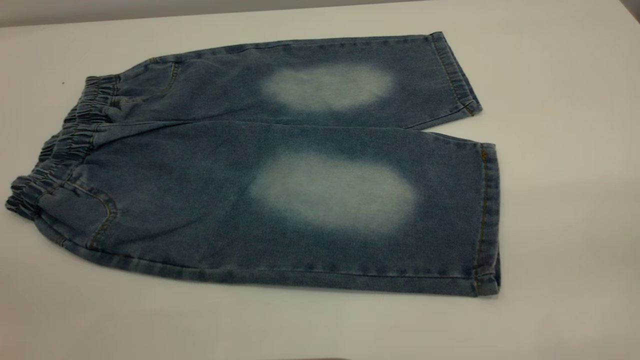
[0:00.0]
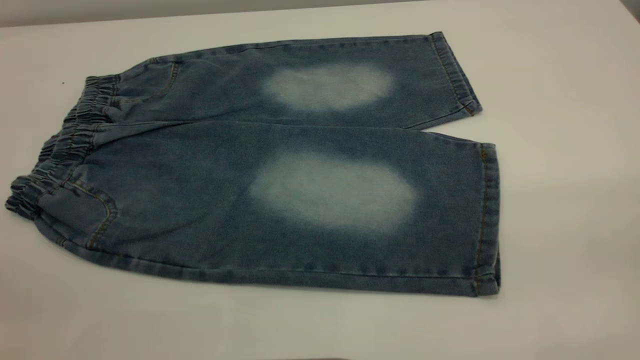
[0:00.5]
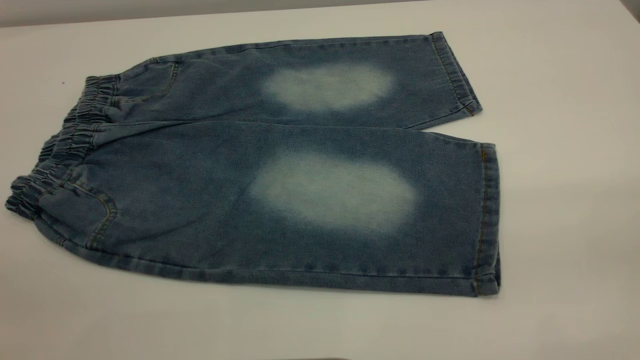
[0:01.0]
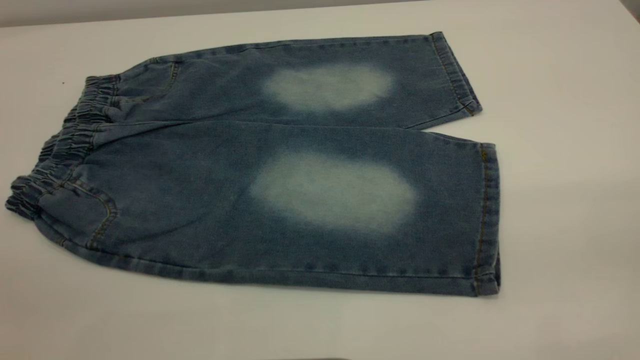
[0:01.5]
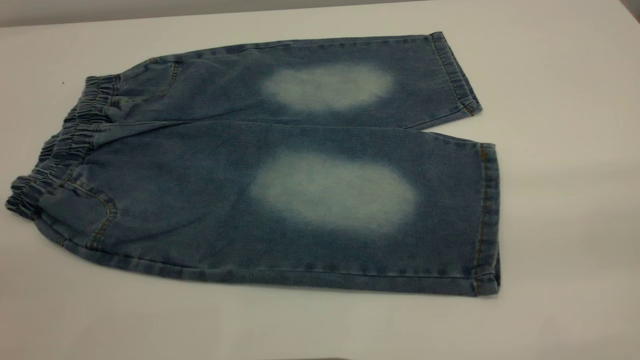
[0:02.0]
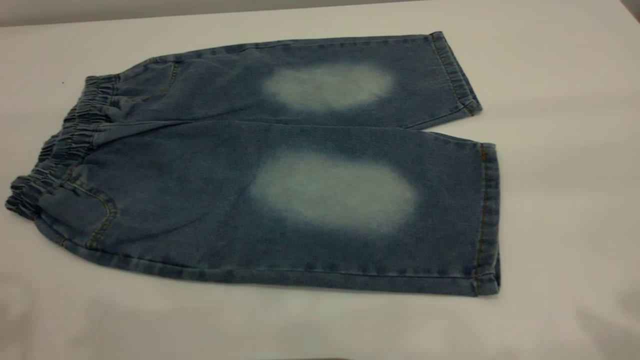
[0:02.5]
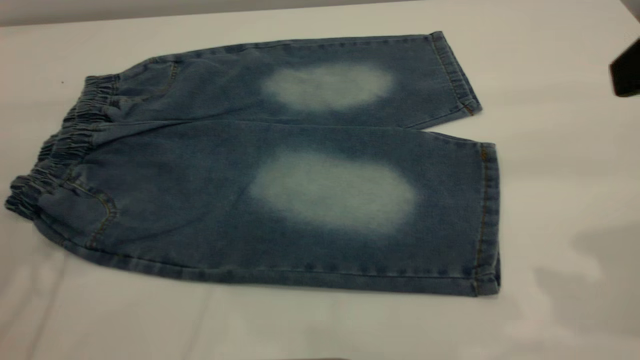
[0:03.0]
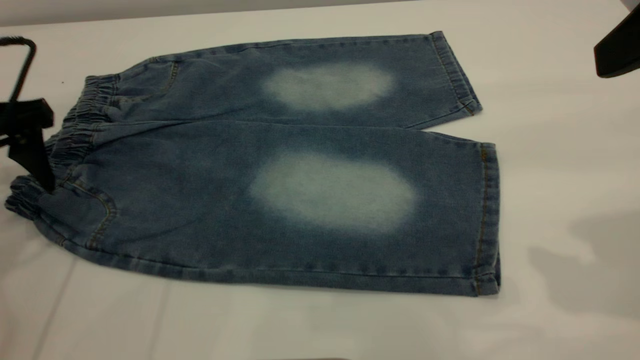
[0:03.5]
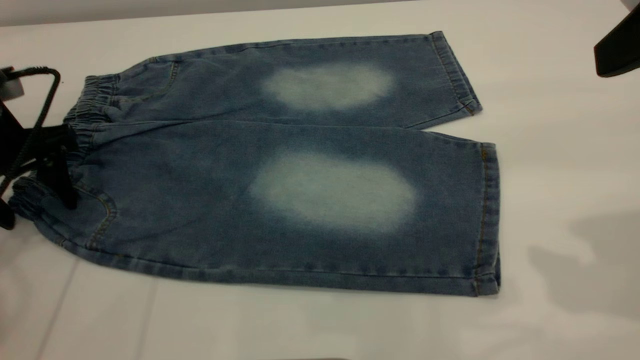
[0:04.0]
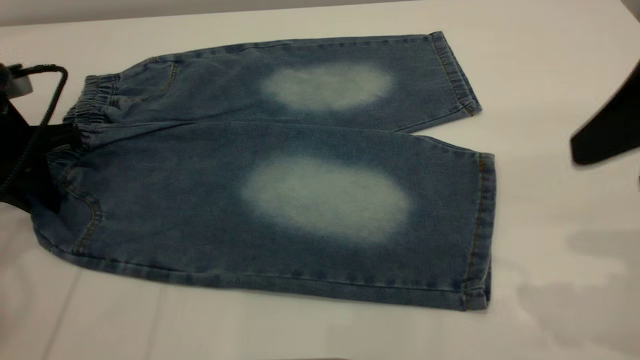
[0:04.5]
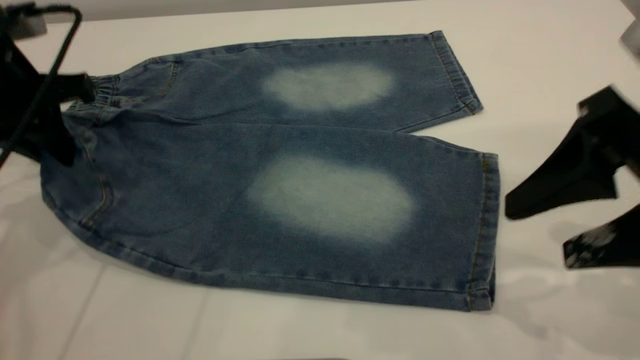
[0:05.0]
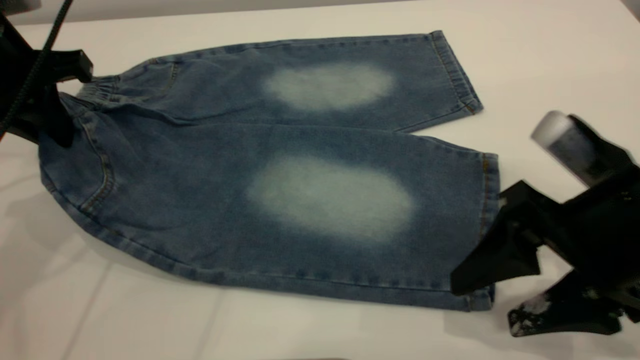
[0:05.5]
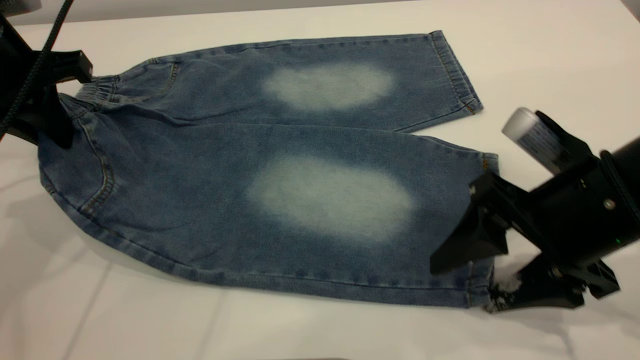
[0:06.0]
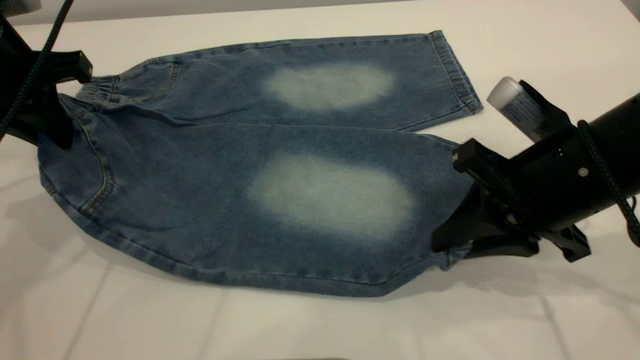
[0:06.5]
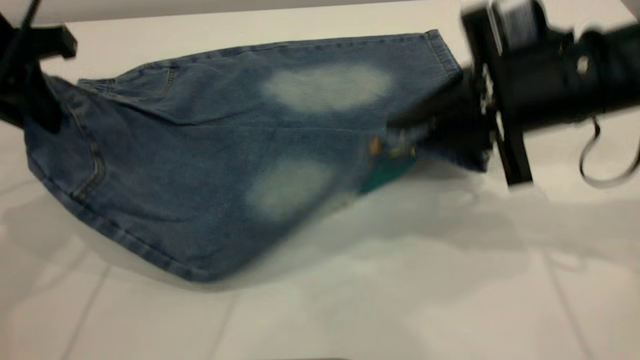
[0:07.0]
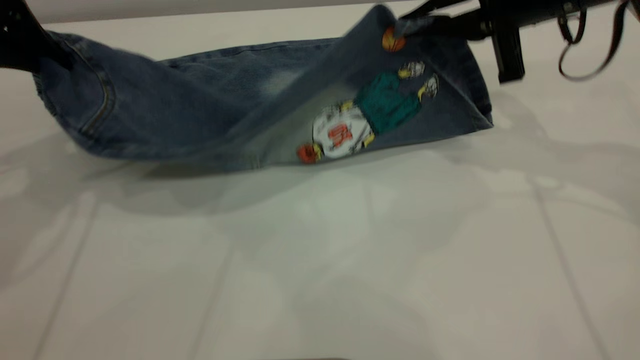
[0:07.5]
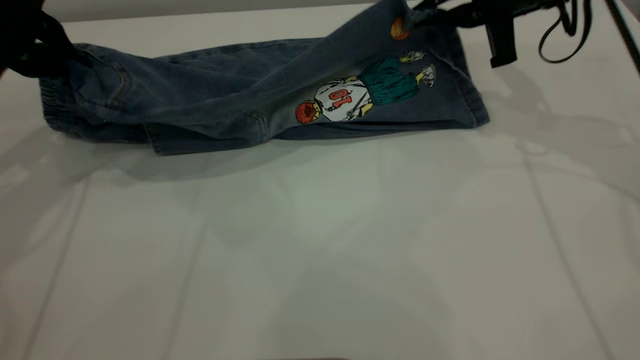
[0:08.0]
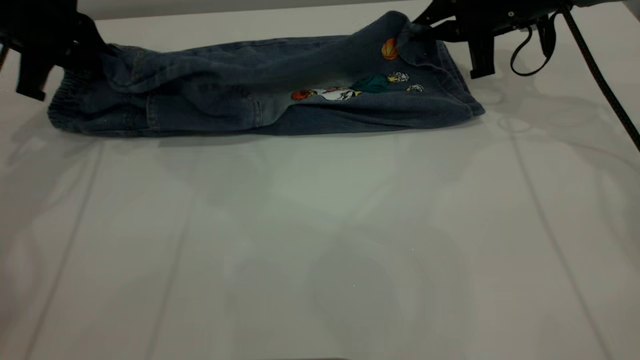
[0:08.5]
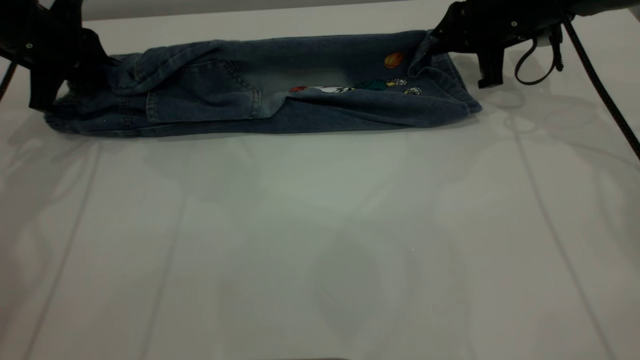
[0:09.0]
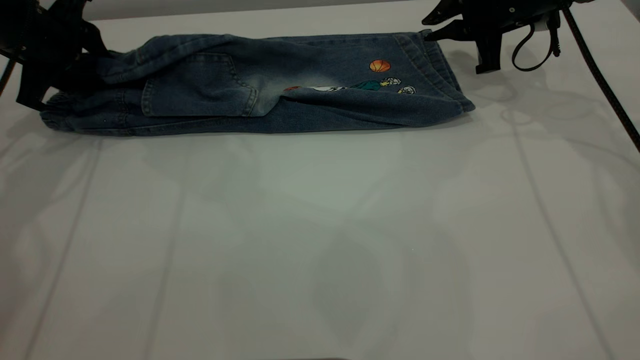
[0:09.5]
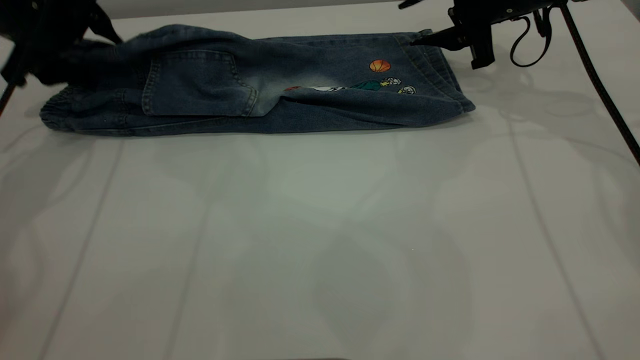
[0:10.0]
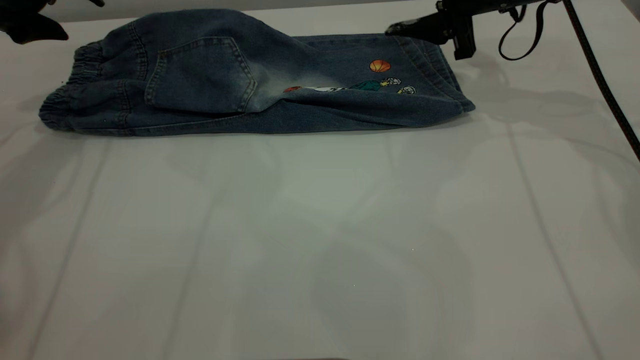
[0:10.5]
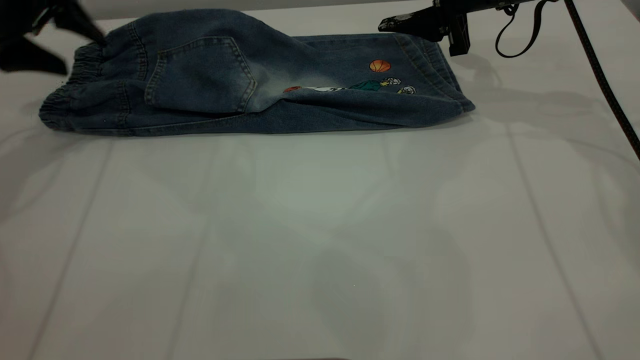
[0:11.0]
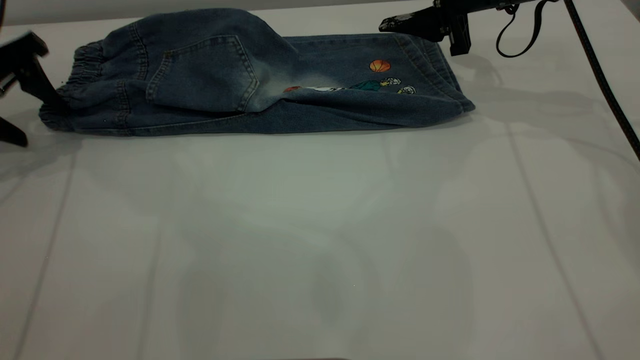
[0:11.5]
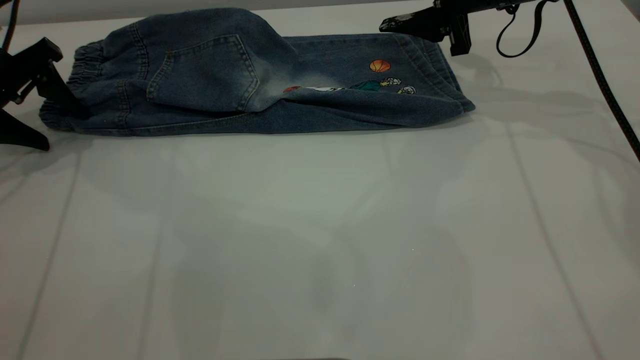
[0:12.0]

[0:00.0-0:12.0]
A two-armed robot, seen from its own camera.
Step, 0:00.0 to 0:10.0: Fold the bottom of the pants upward.
0:02.0 to 0:04.0: The left gripper heads forward and downward, covering about 40 cm; the right gripper shifts roughly 20 cm forward.
0:04.0 to 0:06.0: The left gripper moves upward, roughly 5 cm, and closes up, while the right gripper is displaced downward by roughly 20 cm.
0:06.0 to 0:08.0: The right gripper heads forward, covering approximately 20 cm, and closes up. The left gripper shifts by roughly 5 cm.
0:08.0 to 0:10.0: The right gripper moves some 5 cm, and opens its fingers. Meanwhile the left gripper shifts some 5 cm forward, and opens.
0:10.0 to 0:12.0: The left gripper shifts some 5 cm to the left.

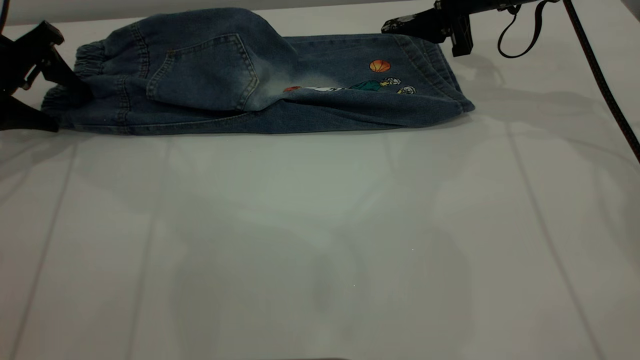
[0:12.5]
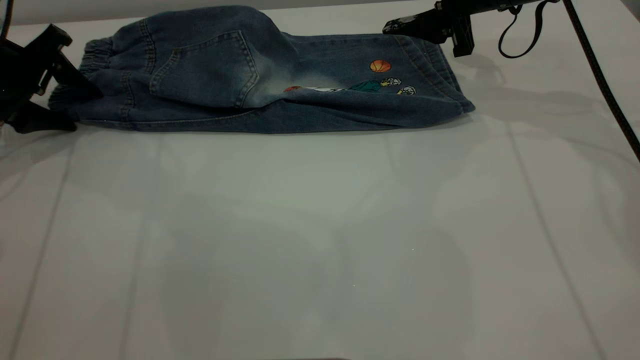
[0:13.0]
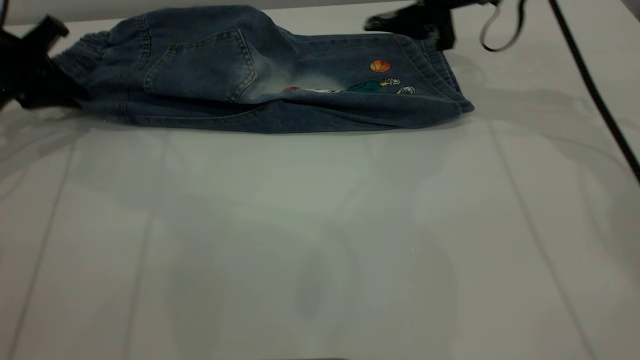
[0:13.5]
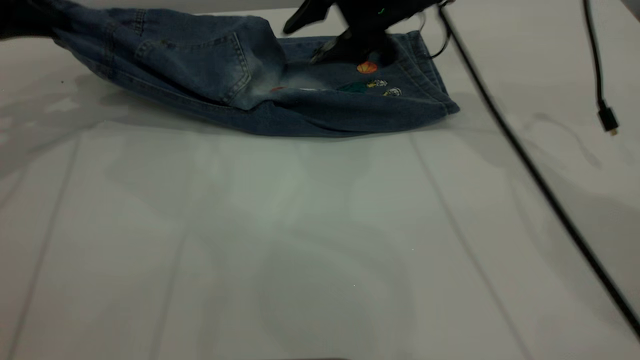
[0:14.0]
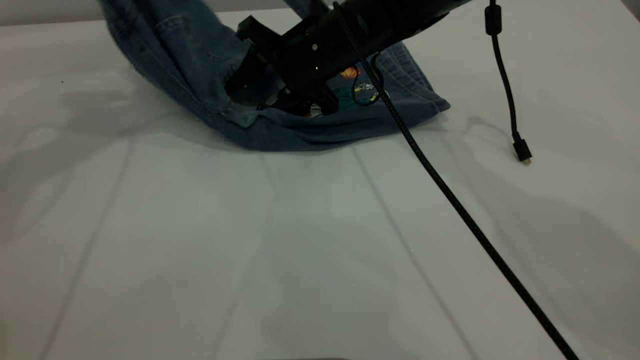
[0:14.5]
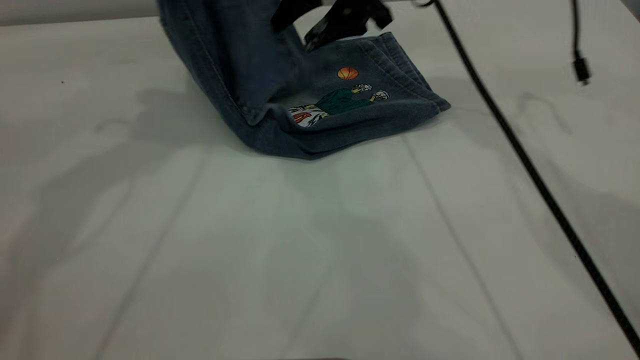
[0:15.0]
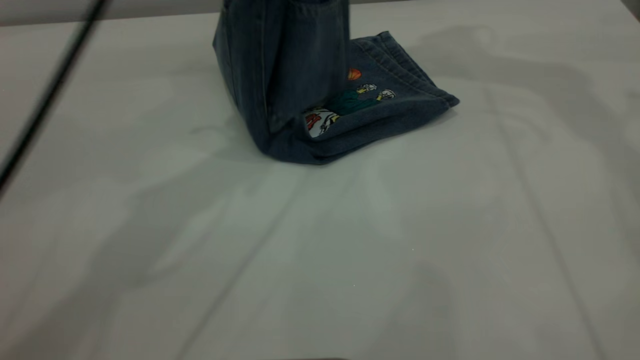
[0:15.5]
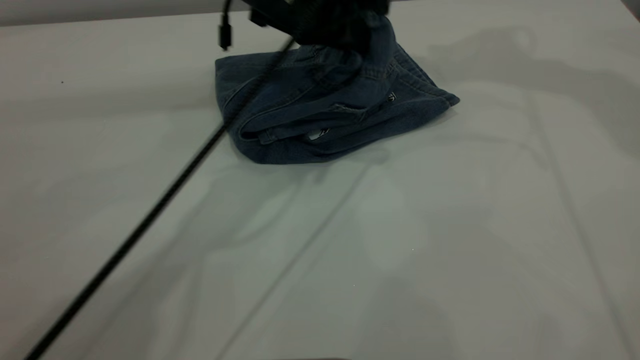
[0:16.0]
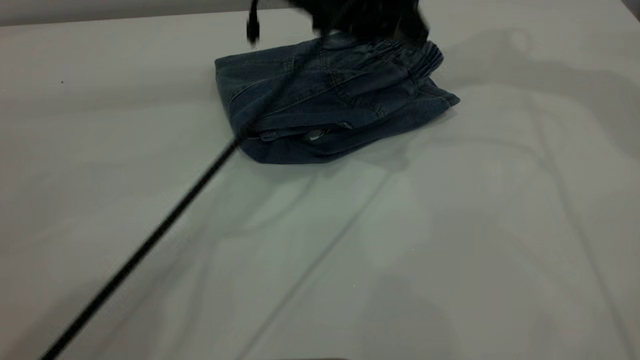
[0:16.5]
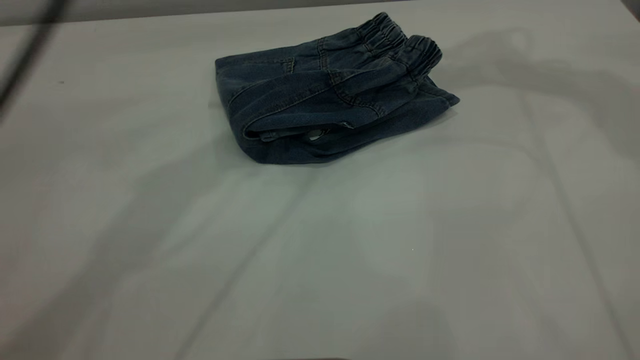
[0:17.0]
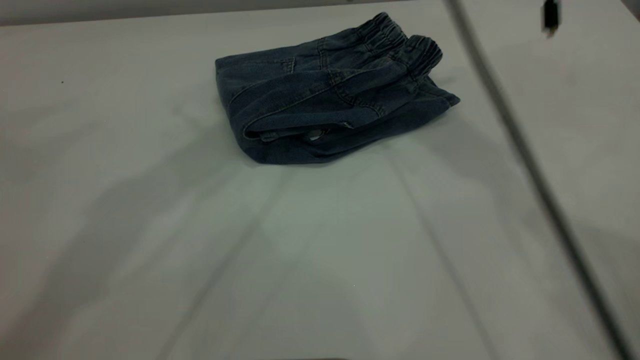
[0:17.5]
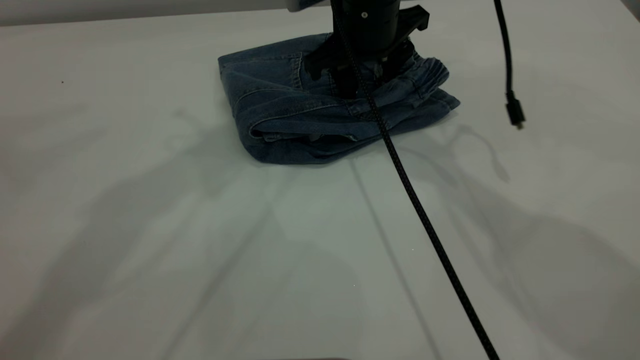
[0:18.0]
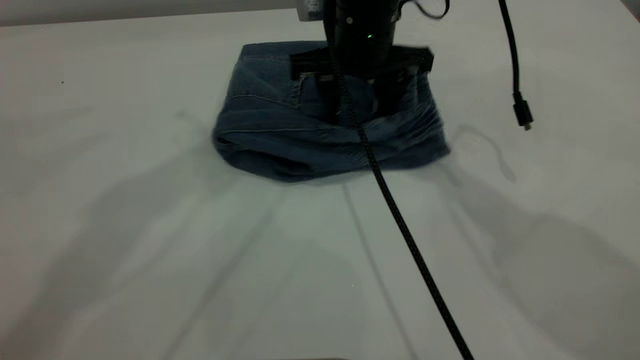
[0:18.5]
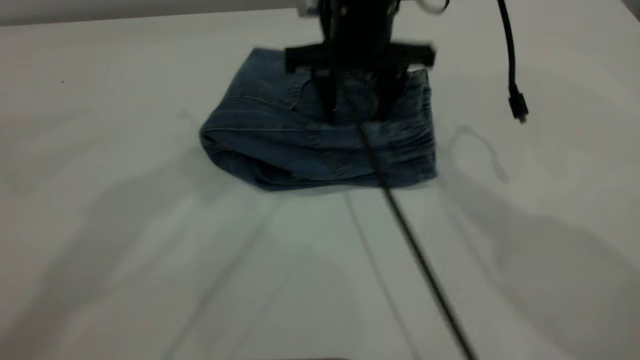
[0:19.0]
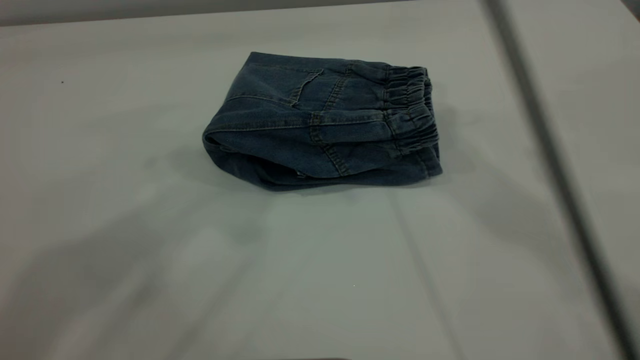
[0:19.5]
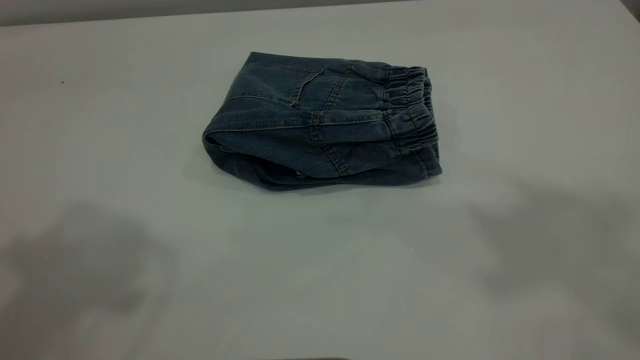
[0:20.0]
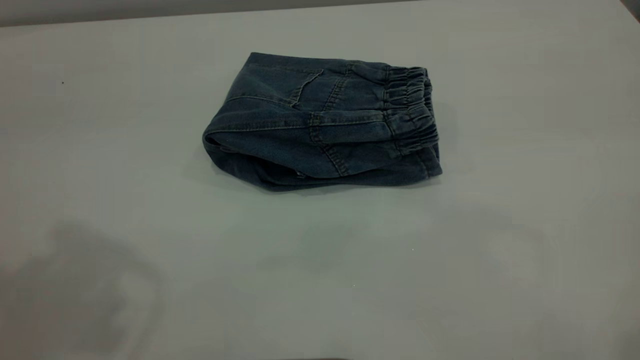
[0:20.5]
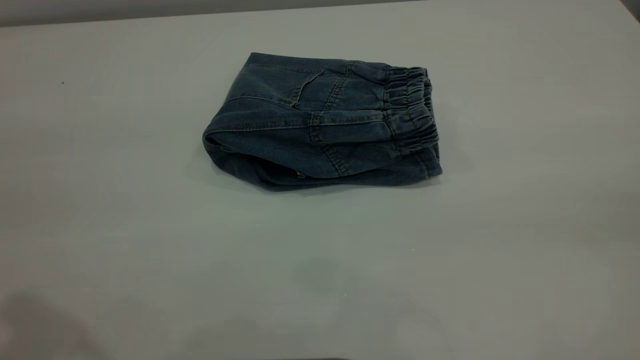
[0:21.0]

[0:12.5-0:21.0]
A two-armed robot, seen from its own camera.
Step, 0:12.5 to 0:16.5: Fold the pants from left to right.
0:12.5 to 0:14.5: The right gripper heads to the left, covering approximately 20 cm. Meanwhile the left gripper shifts roughly 15 cm upward and to the right, and closes.
0:14.5 to 0:16.5: The left gripper moves to the right, approximately 25 cm, and opens. The right gripper moves upward and to the right, approximately 35 cm.
0:16.5 to 0:19.0: The left gripper shifts roughly 25 cm upward and to the left. The right gripper is displaced downward and to the left by approximately 30 cm.
0:19.0 to 0:21.0: The right gripper travels backward, to the right and upward by some 40 cm; the left gripper shifts about 25 cm backward and to the left.
